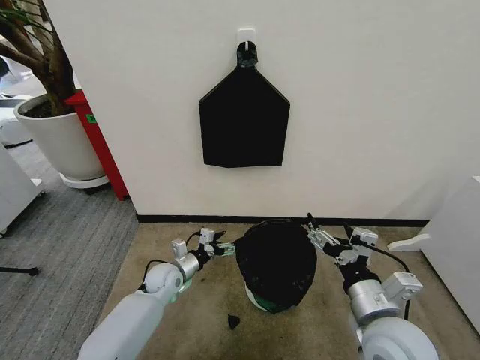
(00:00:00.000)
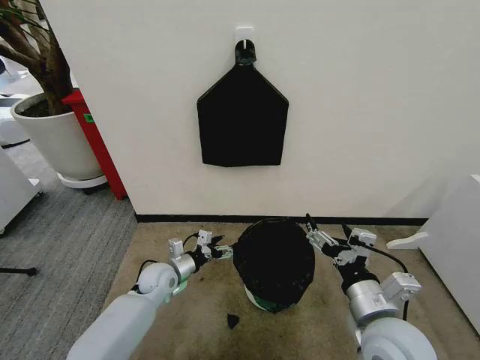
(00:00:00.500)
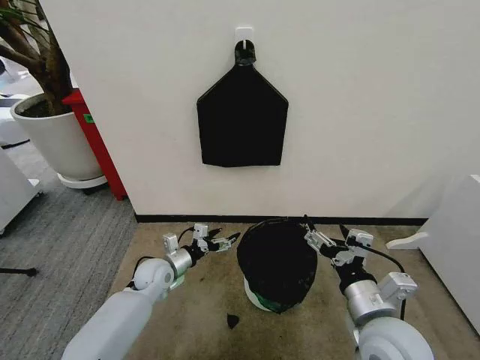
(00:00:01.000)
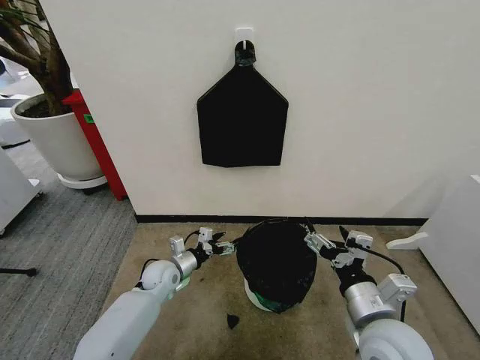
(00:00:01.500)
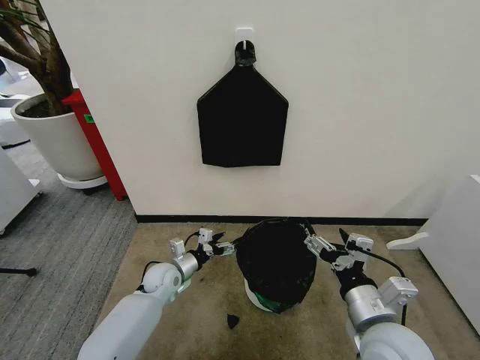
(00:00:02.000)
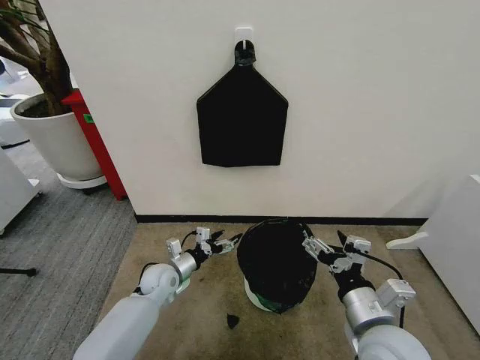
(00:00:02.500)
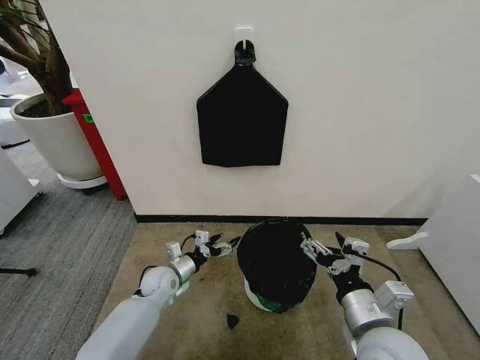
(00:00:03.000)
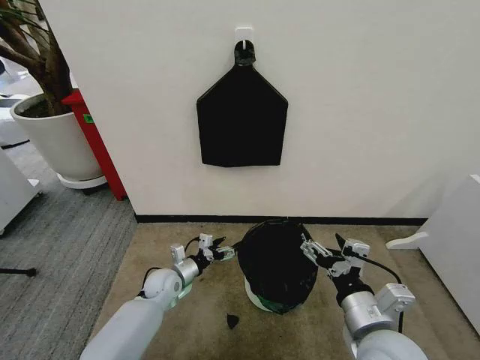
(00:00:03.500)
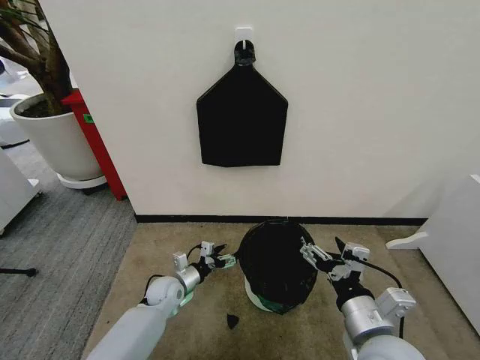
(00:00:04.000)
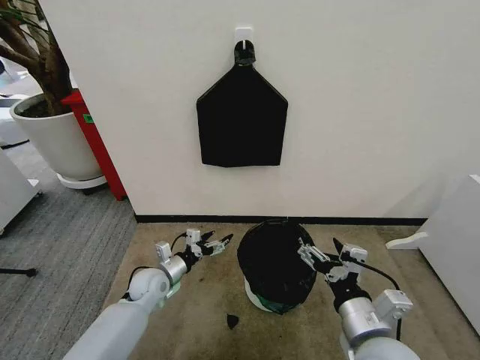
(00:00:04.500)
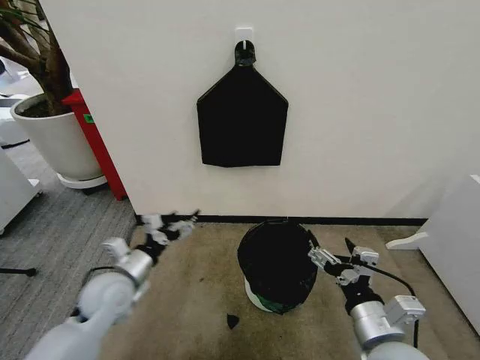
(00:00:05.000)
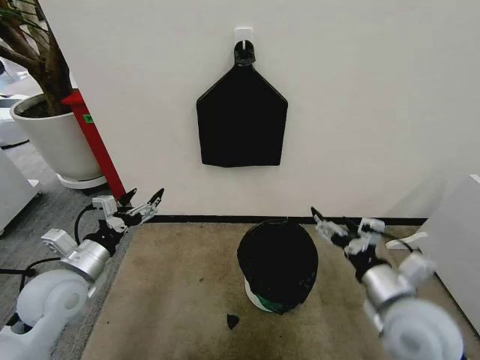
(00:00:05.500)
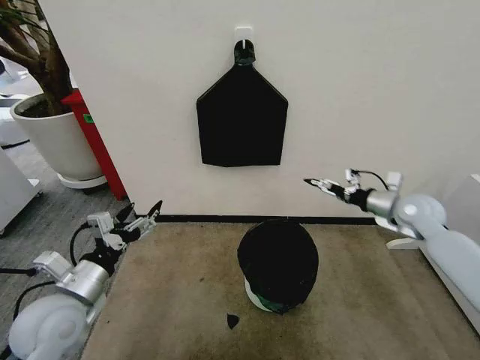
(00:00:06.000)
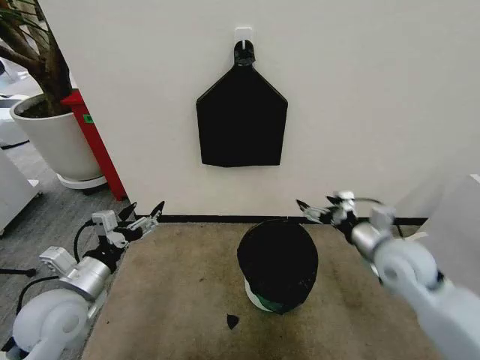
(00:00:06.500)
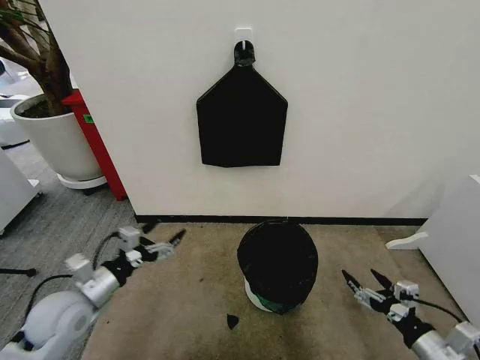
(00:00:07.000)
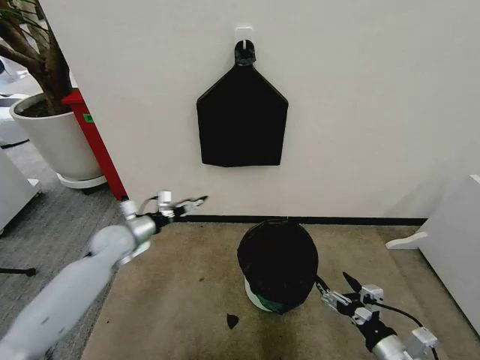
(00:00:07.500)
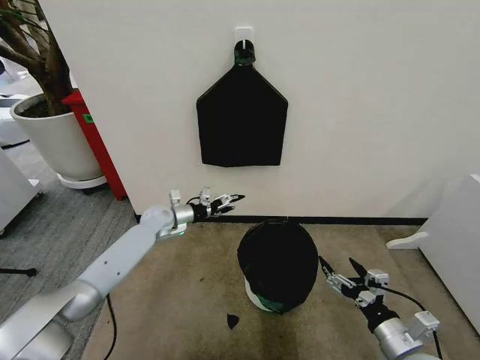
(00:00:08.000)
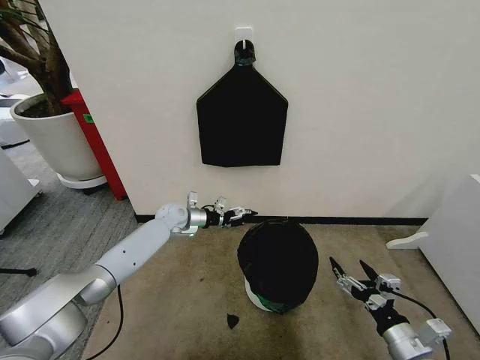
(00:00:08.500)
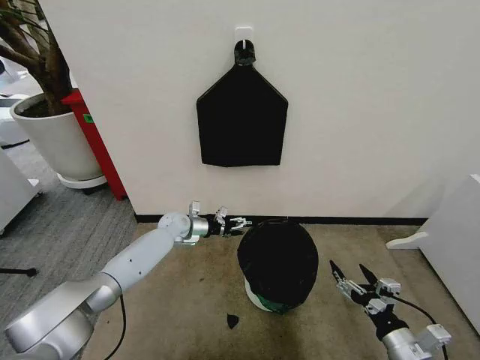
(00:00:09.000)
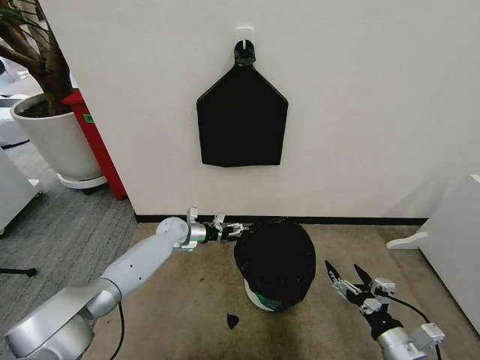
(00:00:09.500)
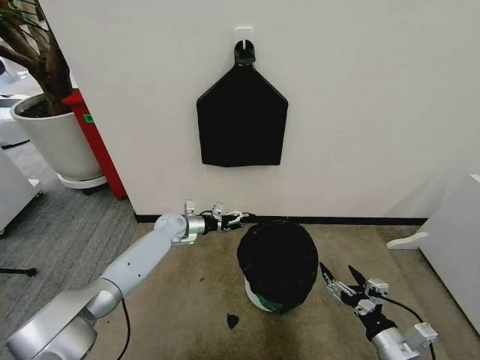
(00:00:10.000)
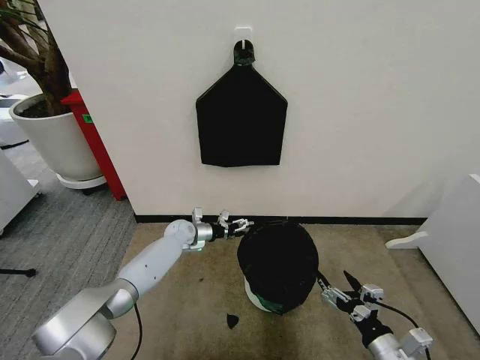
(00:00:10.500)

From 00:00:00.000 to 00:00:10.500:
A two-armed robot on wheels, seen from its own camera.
Task of the whole recording: Place the garbage bag over the trash bin.
From 00:00:00.000 to 00:00:04.000: There are only small adjustments of the grippers.
From 00:00:04.000 to 00:00:06.500: The right gripper shifts some 20 cm forward and to the right. Meanwhile the left gripper shifts roughly 30 cm upward, backward and to the left.
From 00:00:06.500 to 00:00:08.500: The left gripper heads forward, covering approximately 30 cm. Meanwhile the right gripper heads backward and downward, covering roughly 20 cm.
From 00:00:08.500 to 00:00:10.500: The left gripper travels downward by roughly 5 cm.

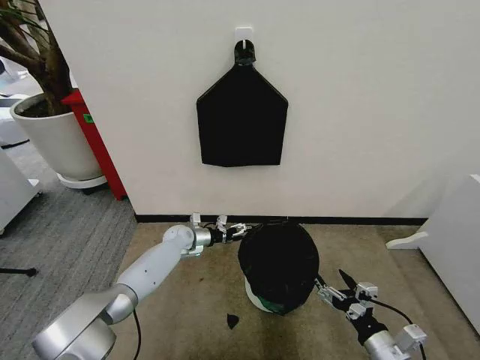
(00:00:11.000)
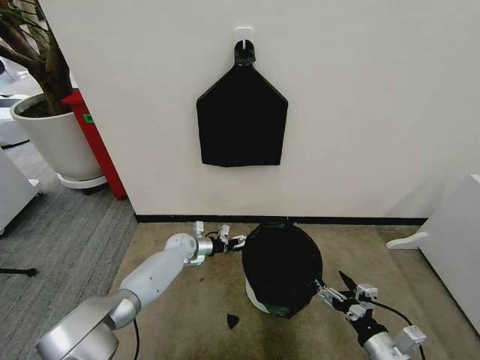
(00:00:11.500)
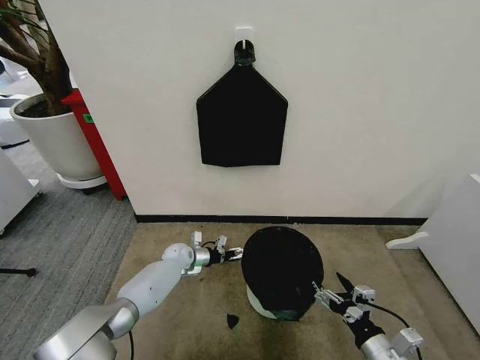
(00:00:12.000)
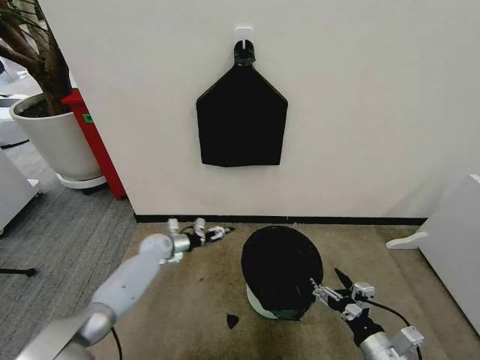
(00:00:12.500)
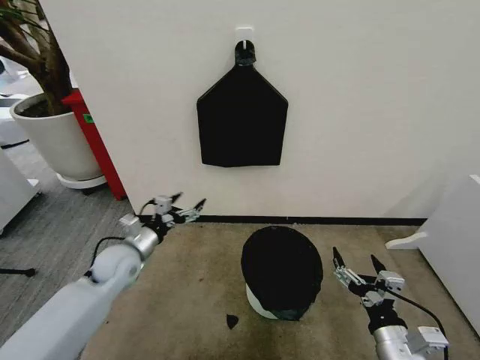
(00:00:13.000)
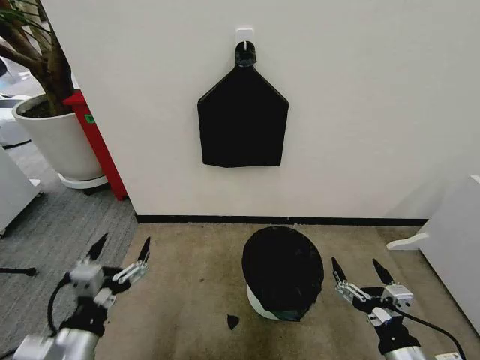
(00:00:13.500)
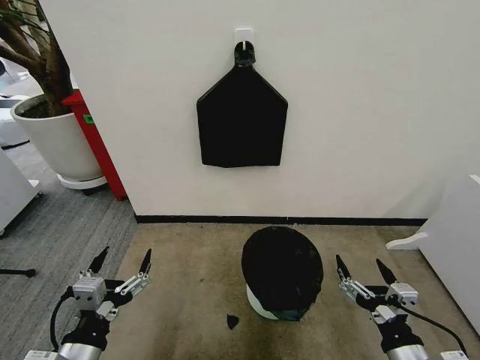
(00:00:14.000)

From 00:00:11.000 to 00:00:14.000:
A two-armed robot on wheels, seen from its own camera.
Task of the whole recording: Place the garbage bag over the trash bin.
From 00:00:11.000 to 00:00:12.500: The left gripper moves to the left, some 5 cm.
From 00:00:12.500 to 00:00:14.000: The right gripper moves upward, about 5 cm, while the left gripper is displaced backward and upward by some 40 cm.

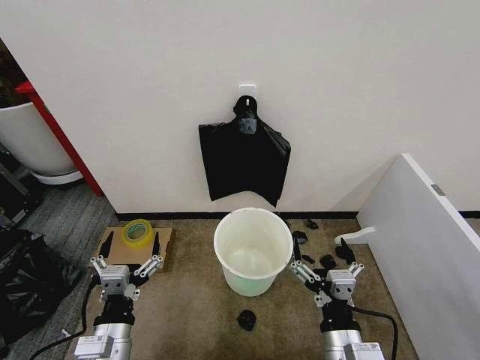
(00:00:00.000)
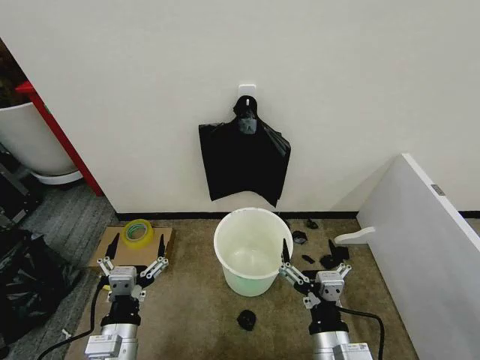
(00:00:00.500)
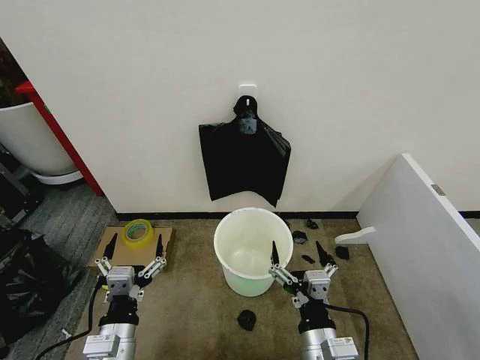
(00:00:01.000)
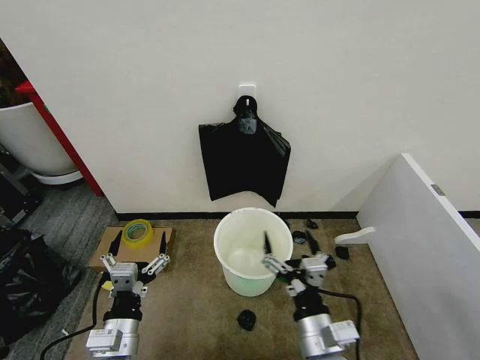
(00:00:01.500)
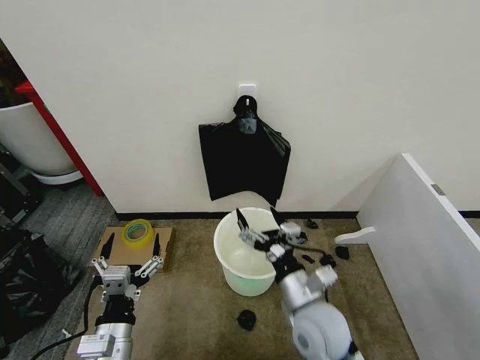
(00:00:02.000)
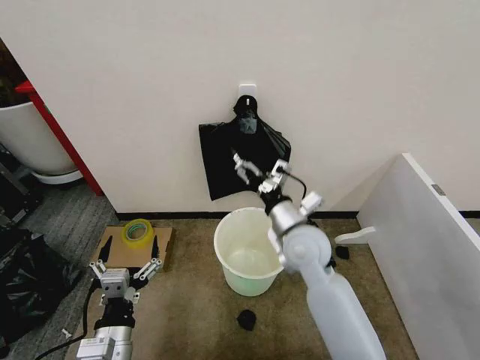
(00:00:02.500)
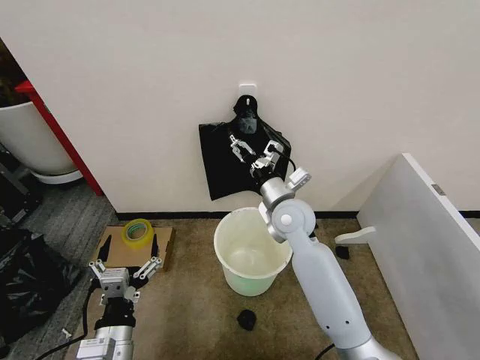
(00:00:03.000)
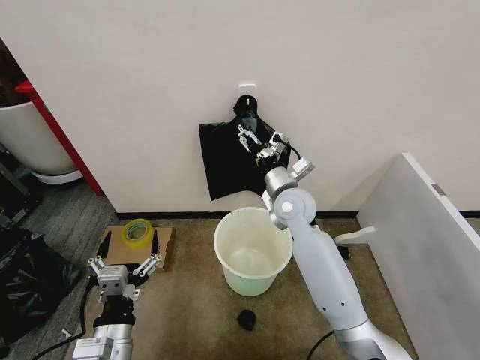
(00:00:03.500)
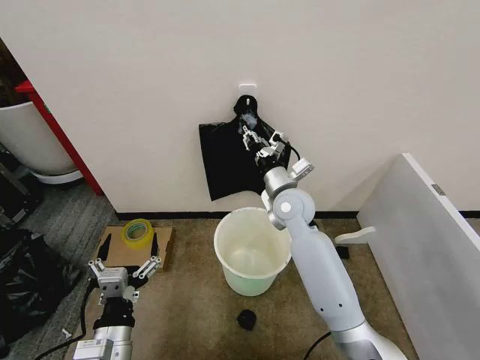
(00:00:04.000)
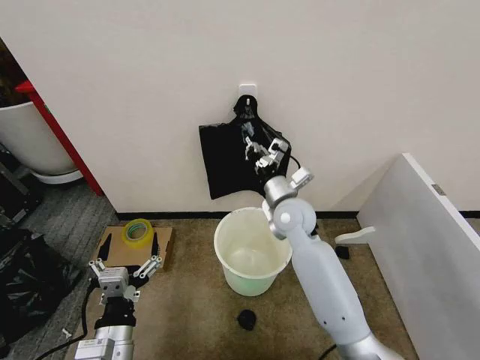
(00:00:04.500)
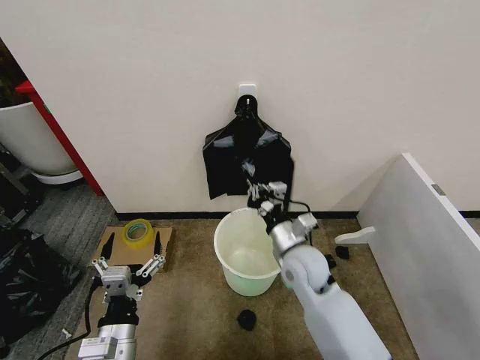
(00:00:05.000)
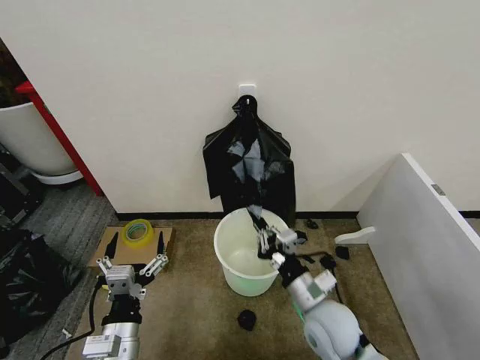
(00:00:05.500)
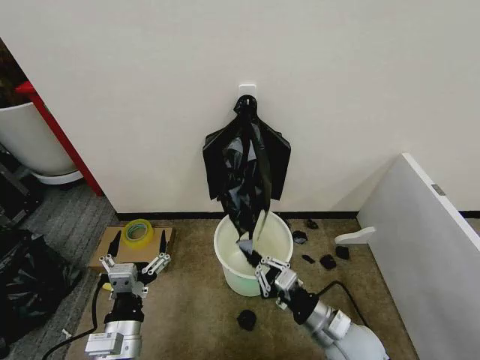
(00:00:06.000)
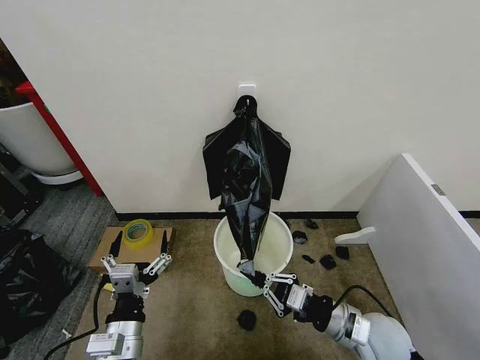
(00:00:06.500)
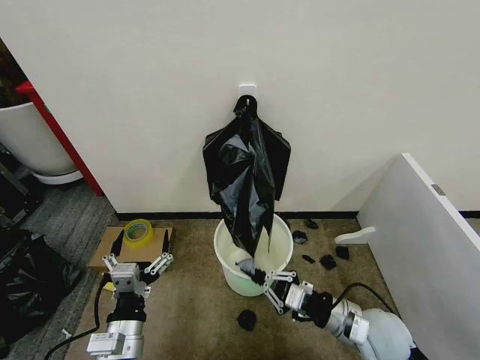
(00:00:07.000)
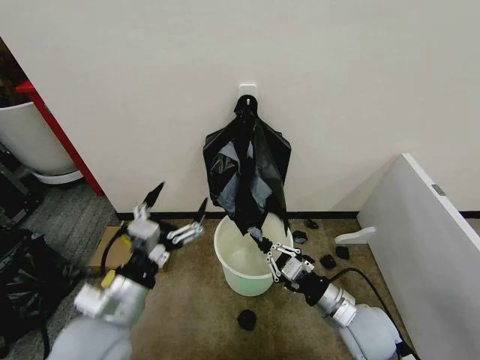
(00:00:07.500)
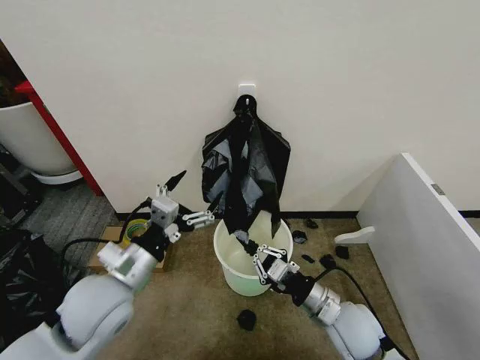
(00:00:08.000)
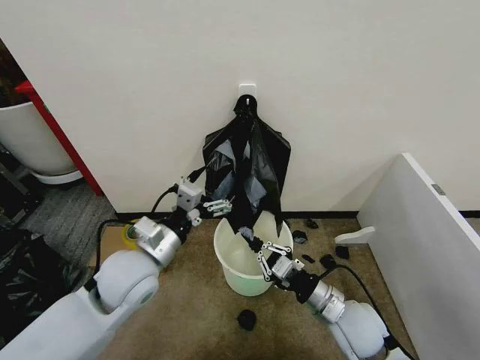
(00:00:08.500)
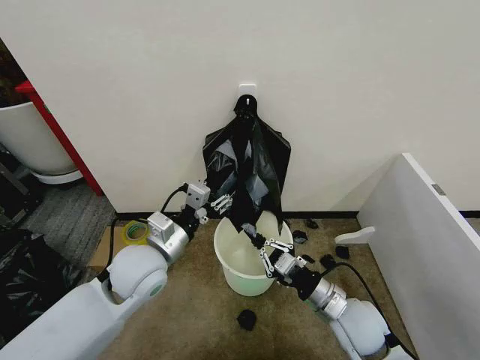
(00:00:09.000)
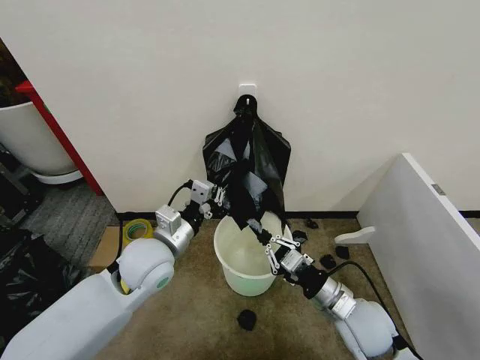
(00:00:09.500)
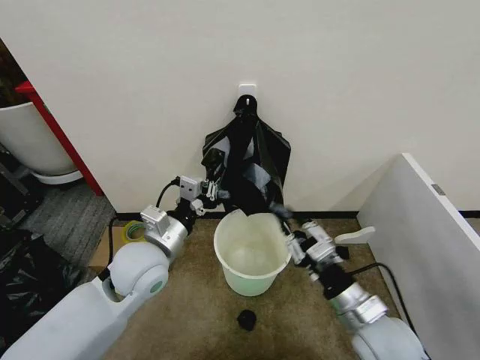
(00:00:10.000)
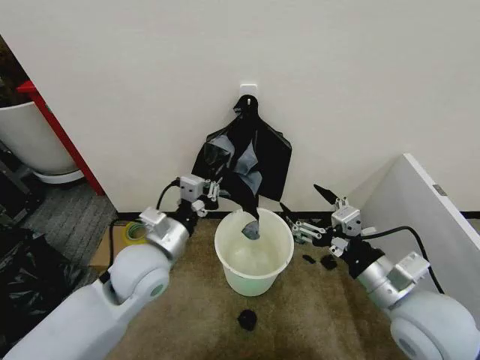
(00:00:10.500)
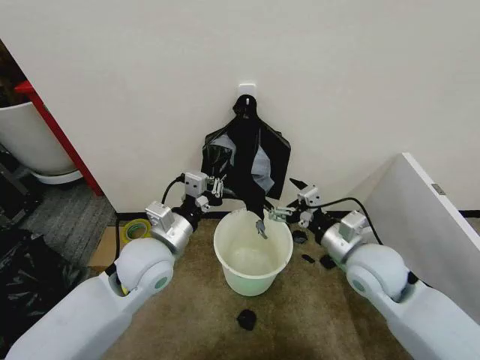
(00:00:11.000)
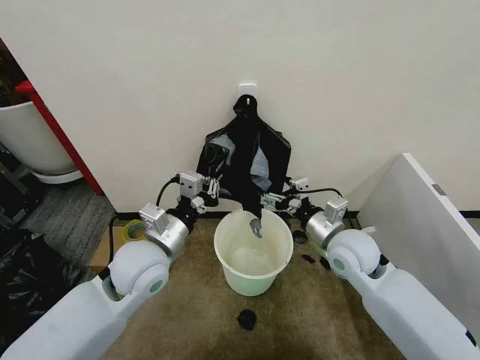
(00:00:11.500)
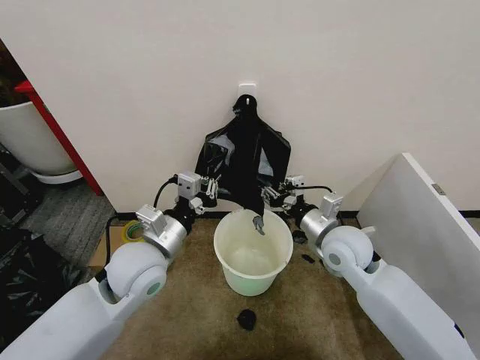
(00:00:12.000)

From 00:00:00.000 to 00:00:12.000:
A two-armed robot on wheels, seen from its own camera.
Task of the whole recording: Place the garbage bag over the trash bin.
From 00:00:02.000 to 00:00:04.000: The right gripper moves forward, about 25 cm, and closes up.
From 00:00:04.000 to 00:00:06.000: The right gripper travels backward and downward by about 30 cm.
From 00:00:06.000 to 00:00:08.000: The left gripper is displaced upward and forward by about 15 cm.
From 00:00:08.000 to 00:00:10.000: The left gripper travels forward by about 5 cm, and closes; the right gripper travels upward by about 5 cm.
From 00:00:10.000 to 00:00:12.000: The right gripper is displaced forward by about 15 cm, and opens, then closes again.
